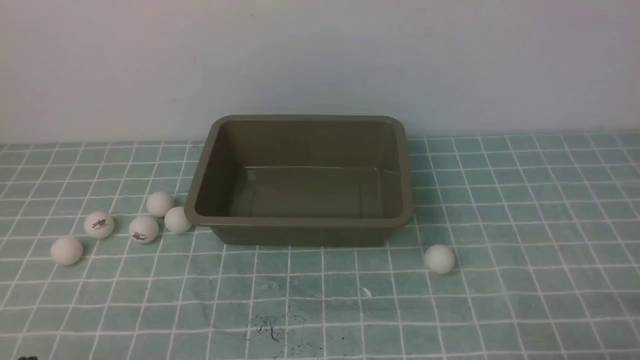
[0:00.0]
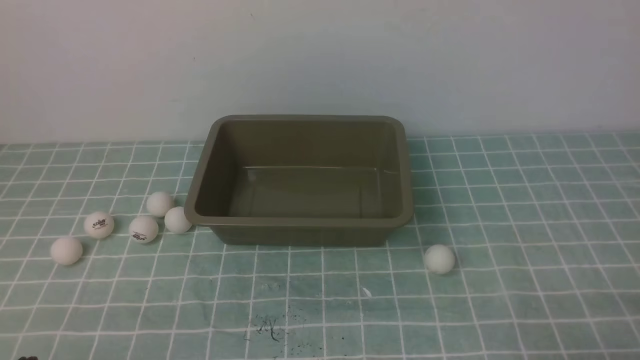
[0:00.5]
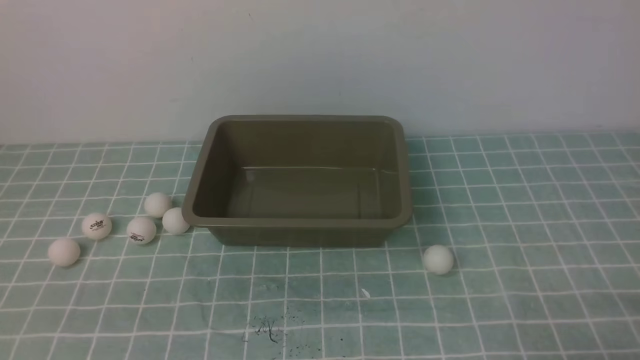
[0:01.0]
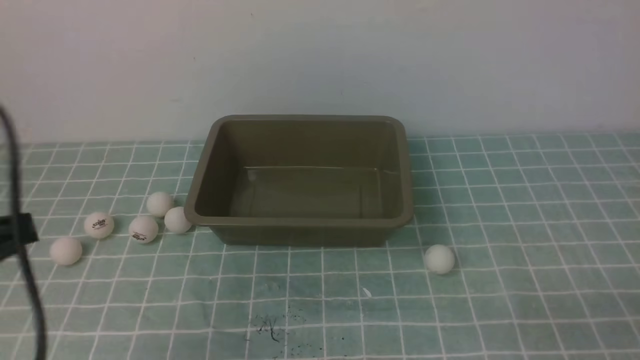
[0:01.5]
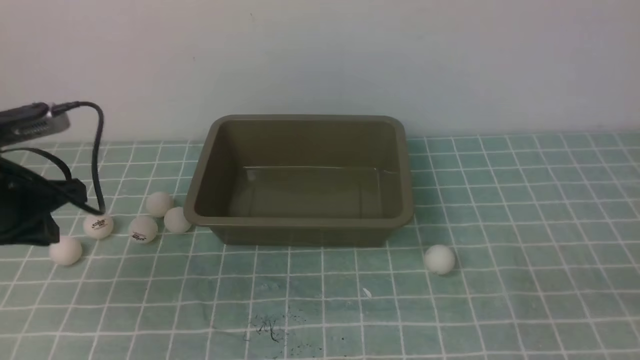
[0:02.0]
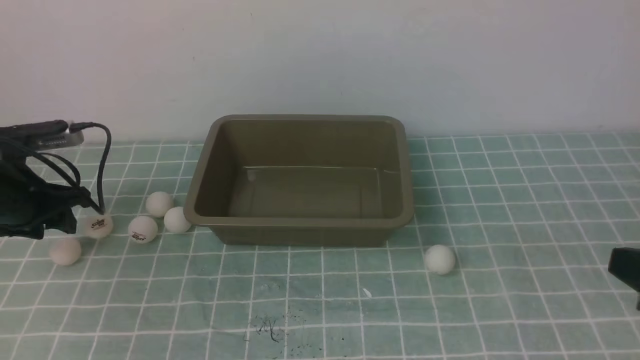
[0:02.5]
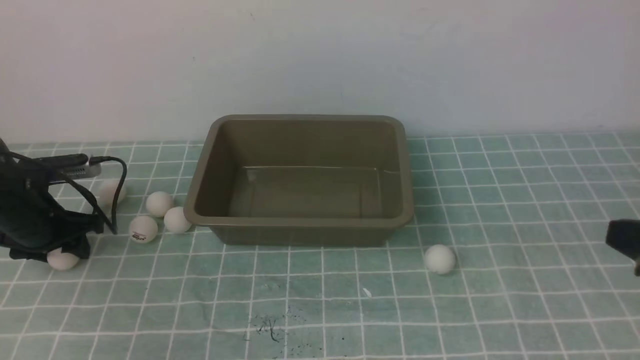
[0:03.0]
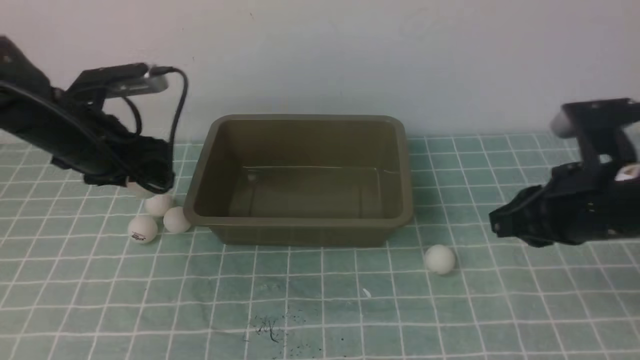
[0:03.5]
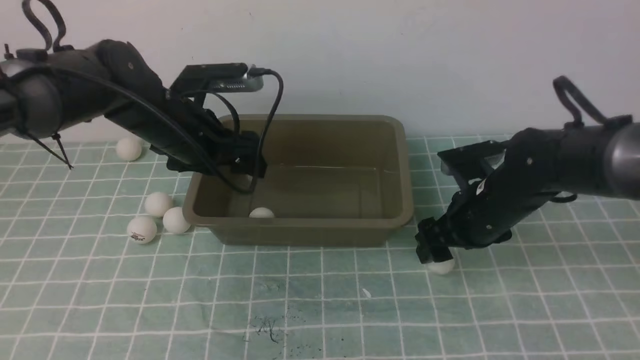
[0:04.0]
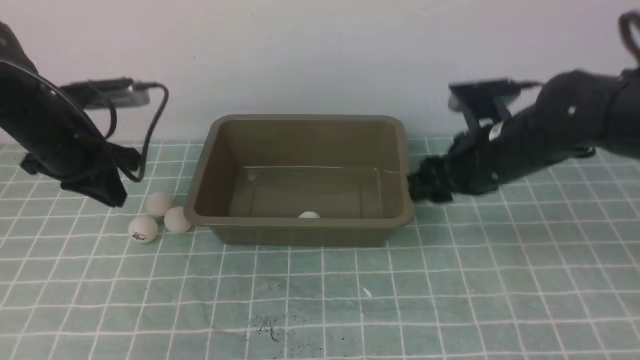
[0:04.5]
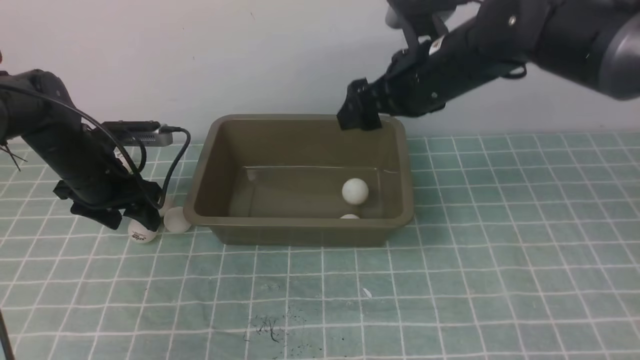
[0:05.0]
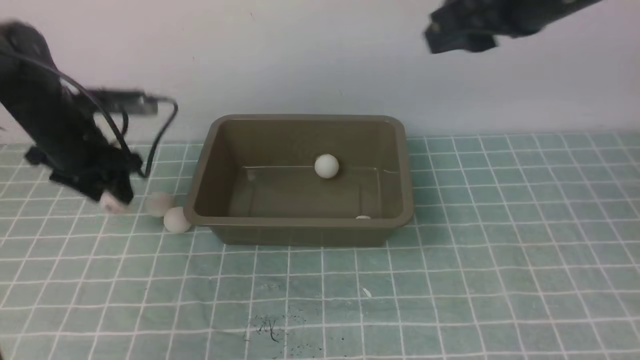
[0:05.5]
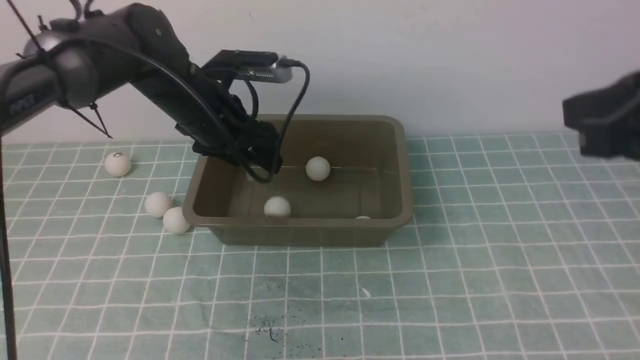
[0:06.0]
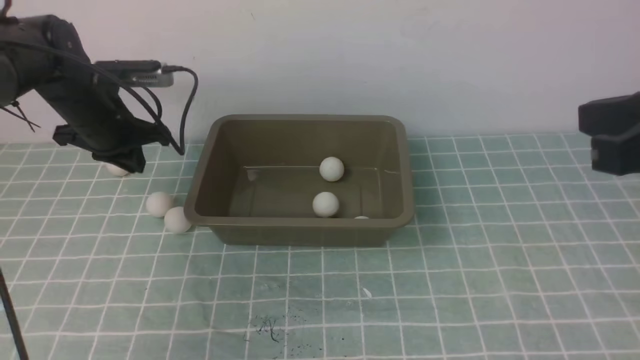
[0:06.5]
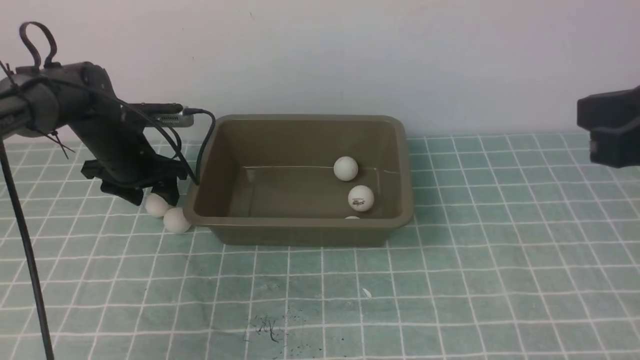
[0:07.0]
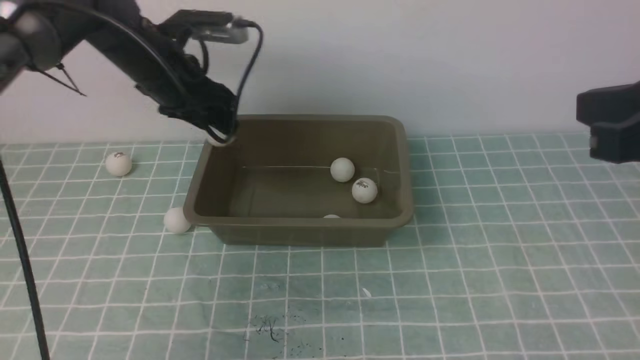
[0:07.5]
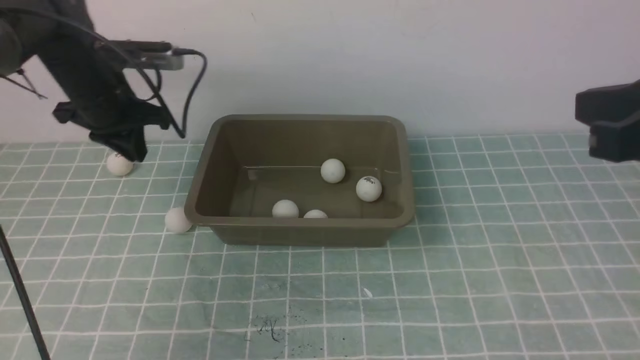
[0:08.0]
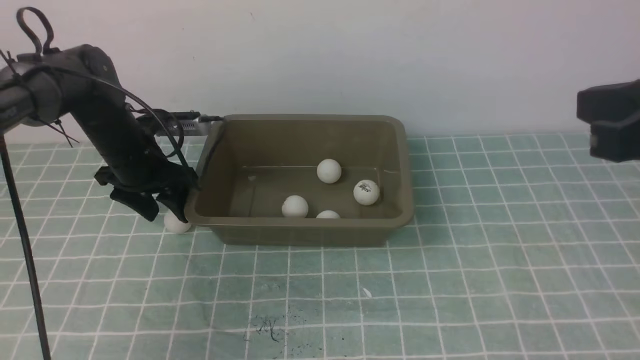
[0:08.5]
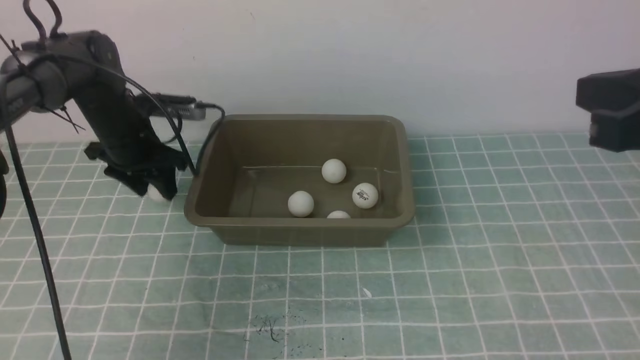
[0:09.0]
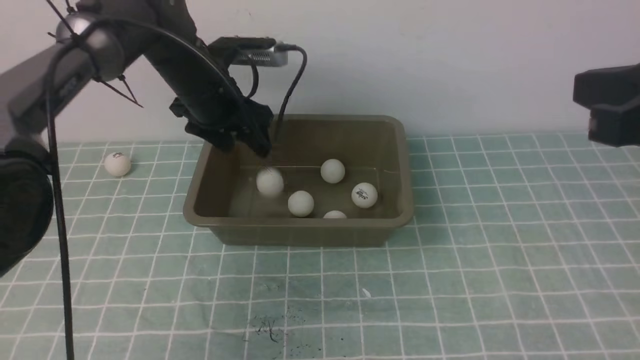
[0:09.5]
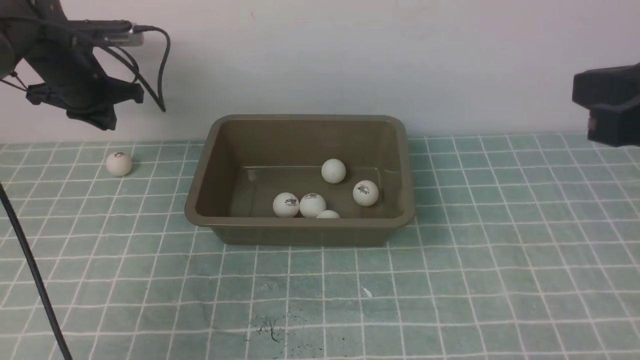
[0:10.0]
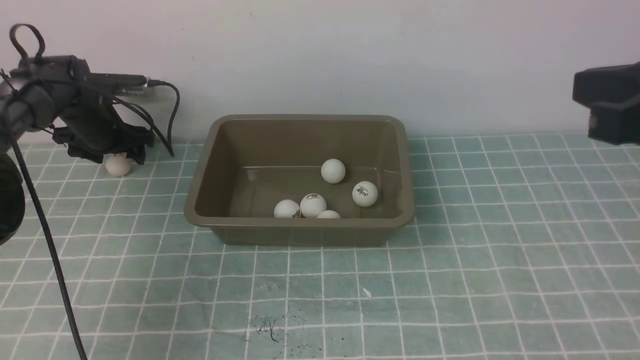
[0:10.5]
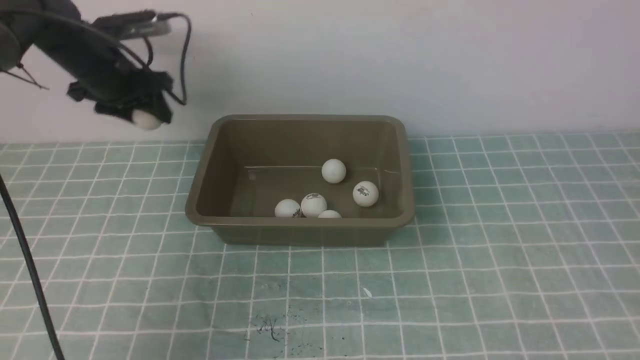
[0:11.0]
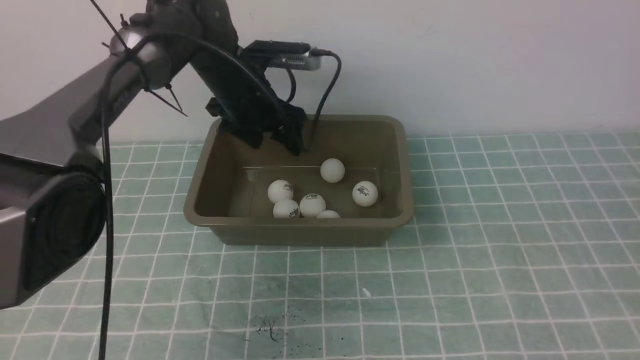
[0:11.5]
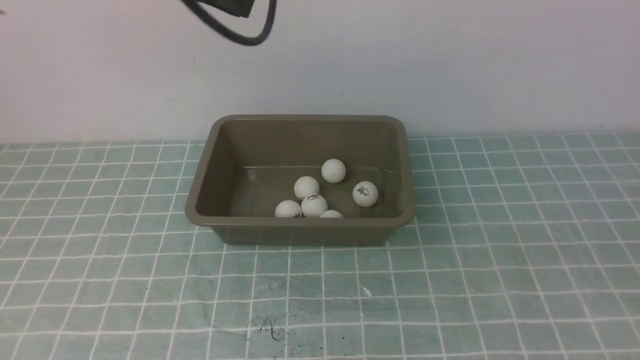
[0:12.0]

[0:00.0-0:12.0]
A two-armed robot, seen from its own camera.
Step, 0:00.0 to 0:03.0: use the left arm to clamp the table tennis ball closest to it.
Step, 0:05.0 to 0:05.5: use the left arm to clamp the table tennis ball closest to it.
Step, 0:06.5 to 0:07.0: use the left arm to clamp the table tennis ball closest to it.
Step, 0:07.5 to 0:08.0: use the left arm to put the table tennis ball into the box.
Step, 0:09.5 to 0:11.0: use the left arm to clamp the table tennis ball closest to it.
0:00.0 to 0:02.0: The left gripper goes about 25 cm forward.
0:02.0 to 0:04.0: The left gripper travels to the right and forward by about 15 cm, and opens its fingers. Meanwhile the right gripper is displaced forward by approximately 30 cm, and opens its fingers.
0:04.0 to 0:06.0: The left gripper goes to the left and returns, approximately 10 cm each way, and closes and opens again, while the right gripper travels upward and backward by roughly 30 cm, and closes up.
0:06.0 to 0:08.0: The left gripper swings left and right, approximately 10 cm each way, with 2 reversals, and closes its fingers.
0:08.0 to 0:10.0: The left gripper shifts roughly 10 cm to the left and forward, and opens, then closes again.
0:10.0 to 0:12.0: The left gripper moves upward, to the right and backward, some 30 cm, and opens and closes again, while the right gripper heads backward and to the right, covering some 20 cm.

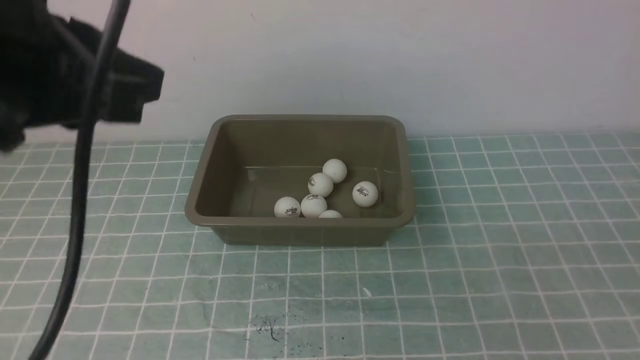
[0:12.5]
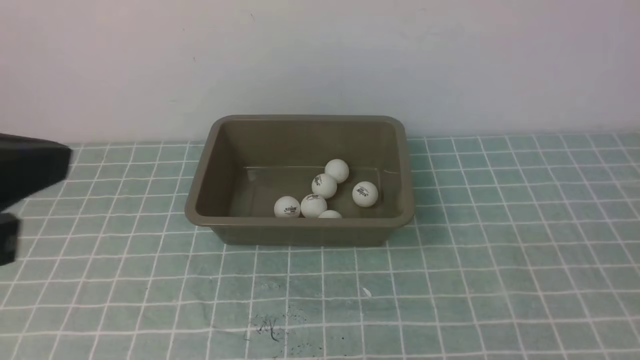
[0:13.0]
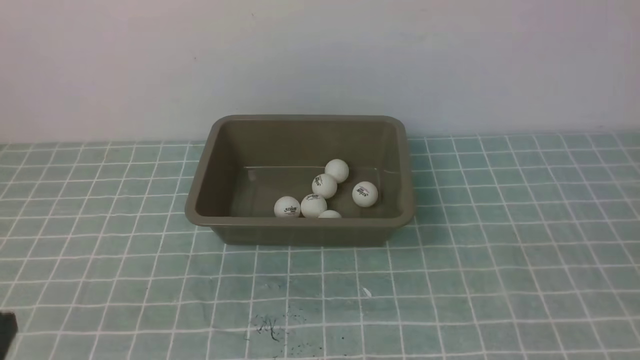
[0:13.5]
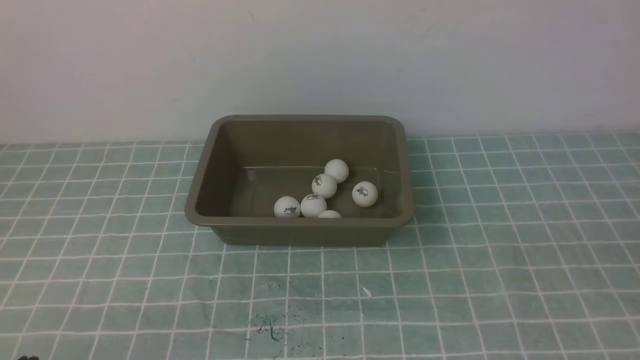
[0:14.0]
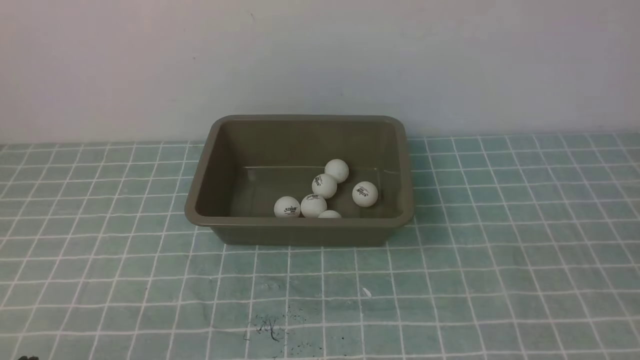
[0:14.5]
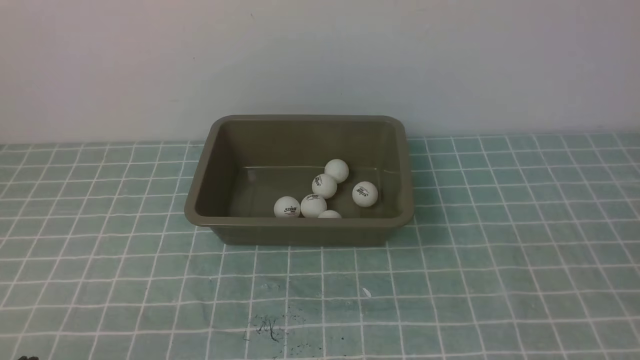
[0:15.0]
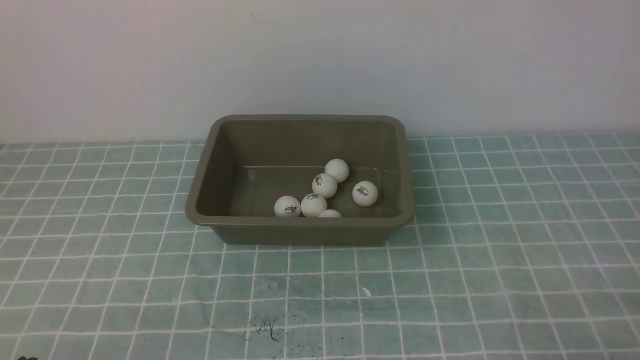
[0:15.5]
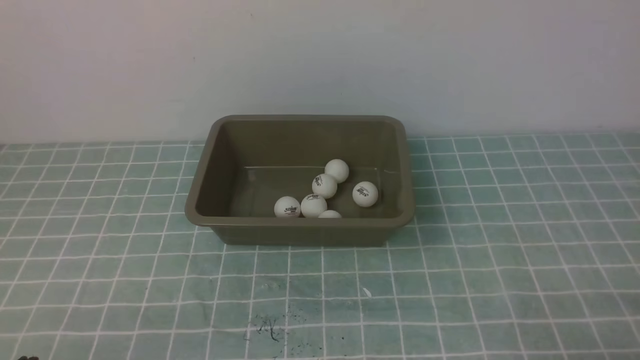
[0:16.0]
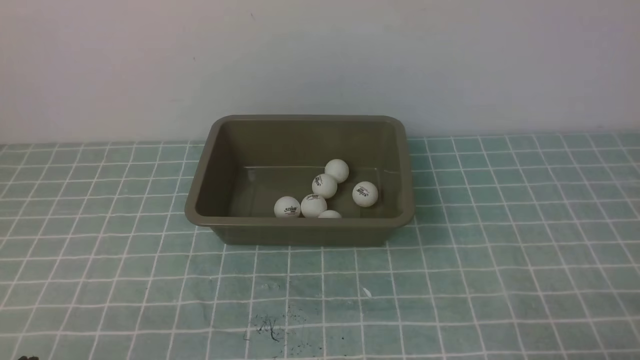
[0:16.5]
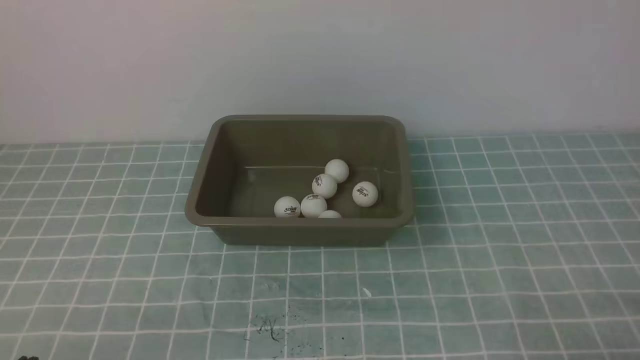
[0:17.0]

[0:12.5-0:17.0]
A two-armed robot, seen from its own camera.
0:12.5 to 0:14.5: The left gripper heads downward and backward, covering roughly 30 cm.

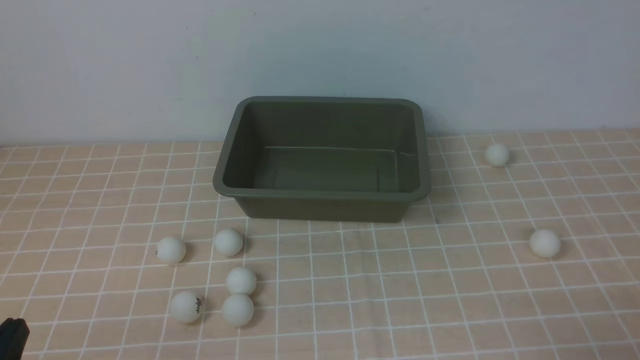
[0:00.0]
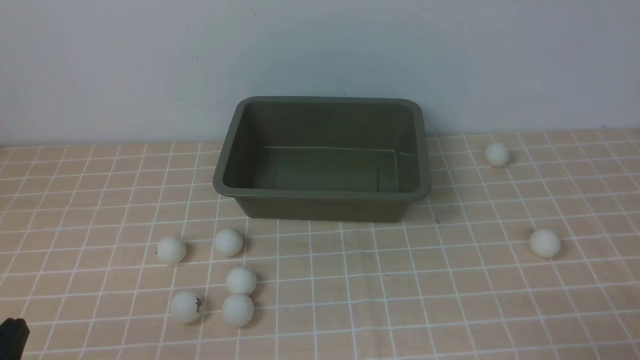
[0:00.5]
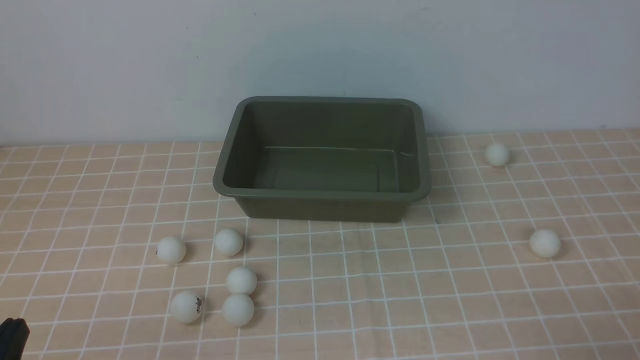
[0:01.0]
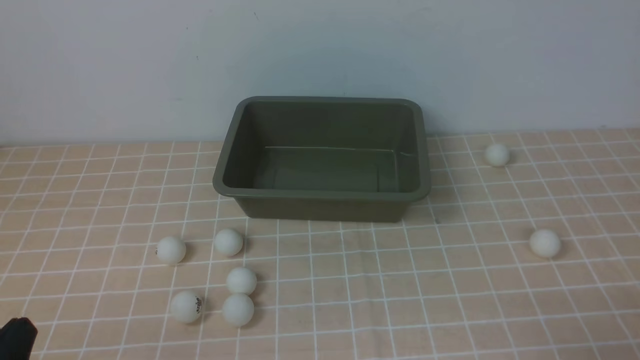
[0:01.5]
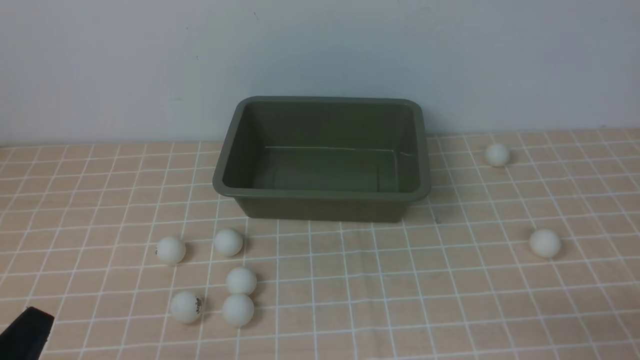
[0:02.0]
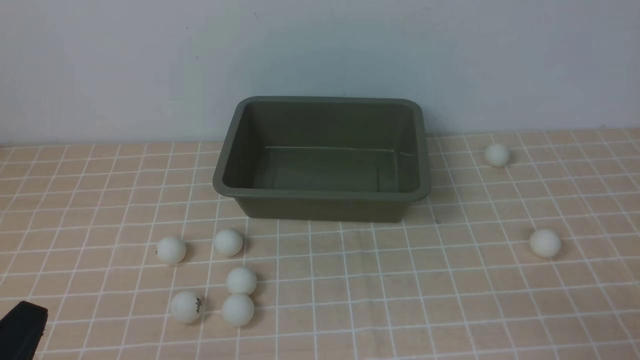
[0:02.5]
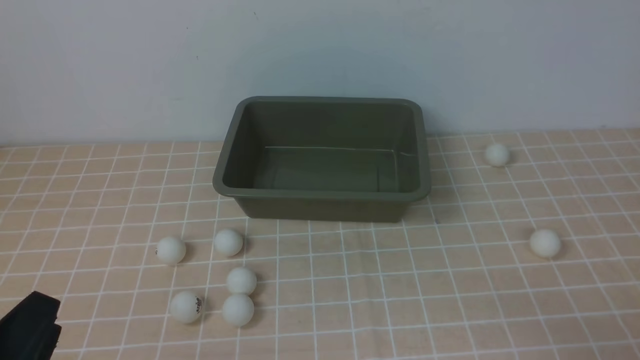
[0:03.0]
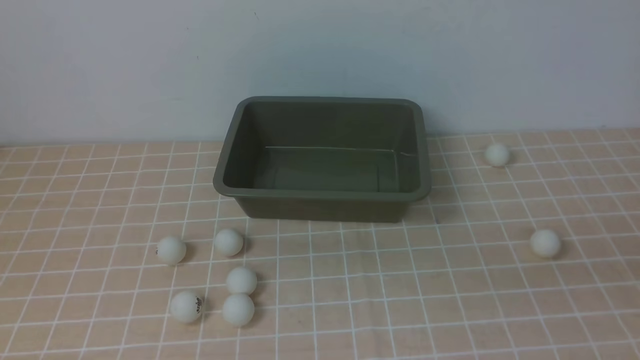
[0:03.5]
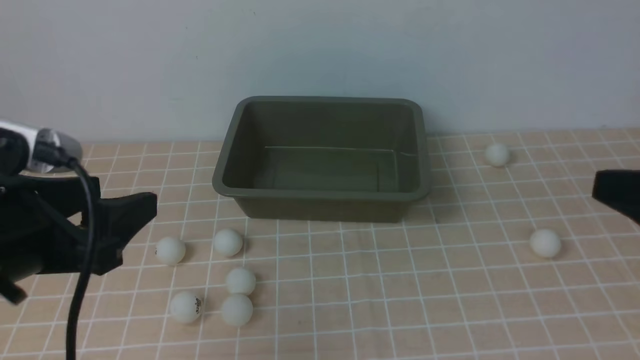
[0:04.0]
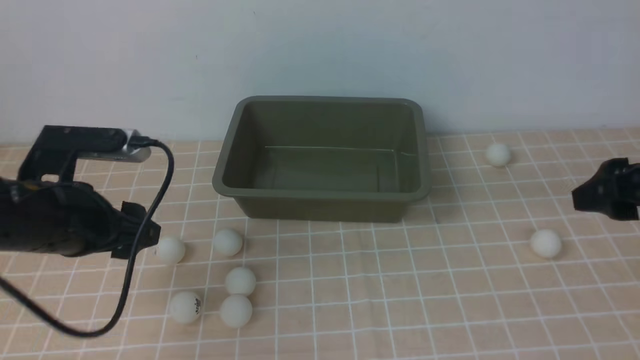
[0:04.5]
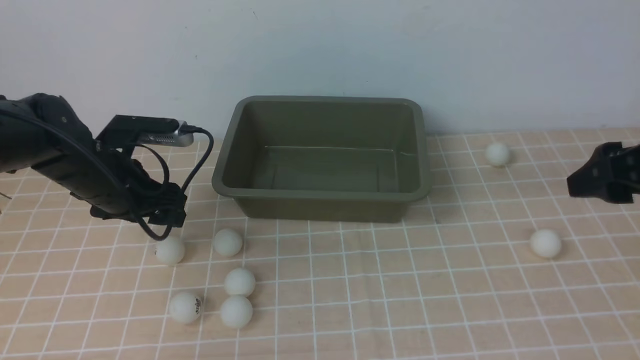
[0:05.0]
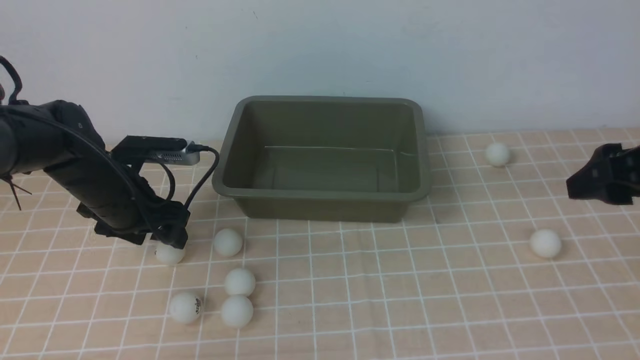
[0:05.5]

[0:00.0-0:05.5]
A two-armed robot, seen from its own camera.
0:02.0 to 0:03.5: The left gripper shifts roughly 10 cm upward, and opens up.
0:03.5 to 0:05.5: The right gripper is displaced forward by about 20 cm; the left gripper heads forward and downward, covering approximately 35 cm.
